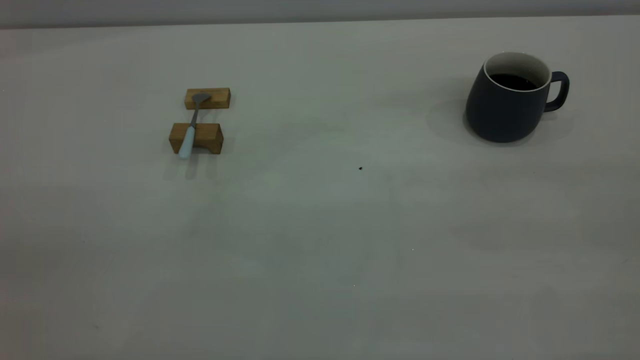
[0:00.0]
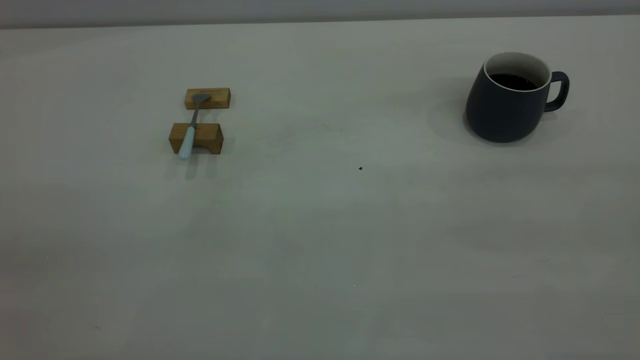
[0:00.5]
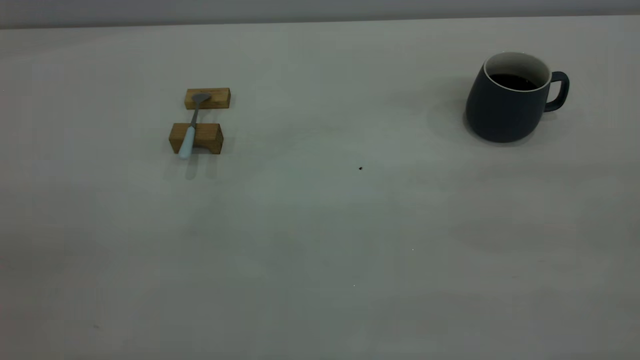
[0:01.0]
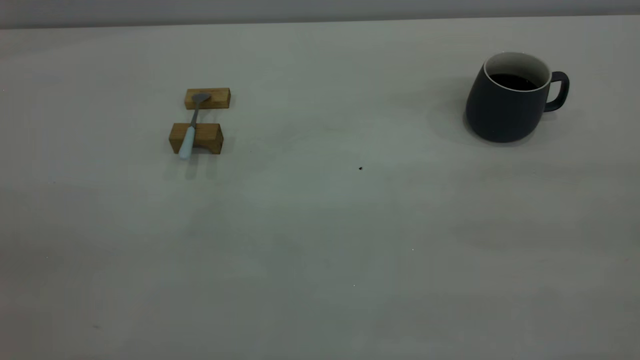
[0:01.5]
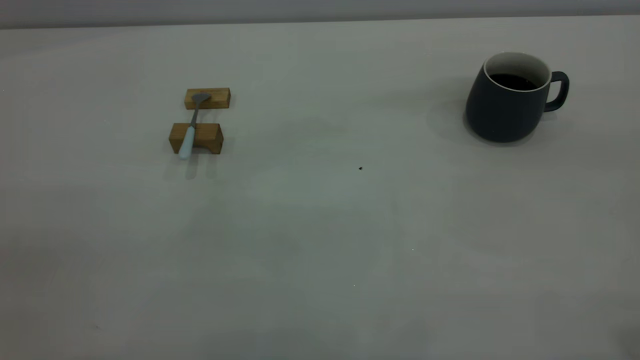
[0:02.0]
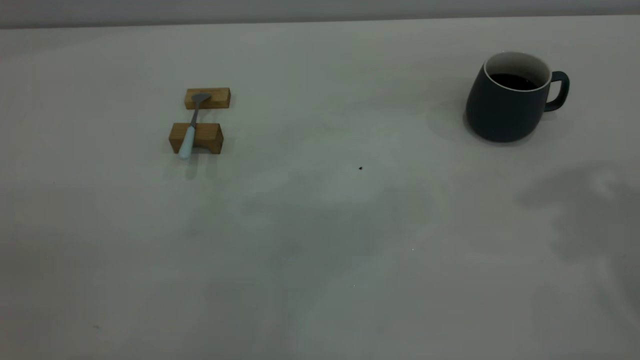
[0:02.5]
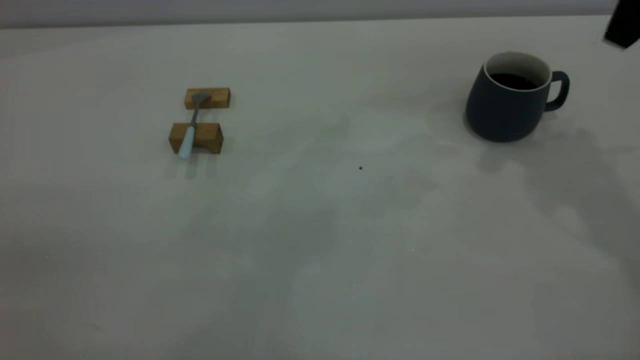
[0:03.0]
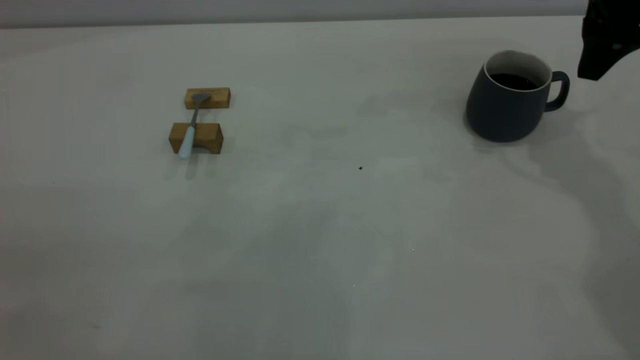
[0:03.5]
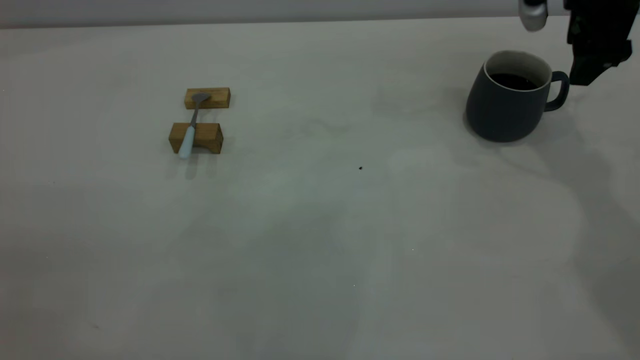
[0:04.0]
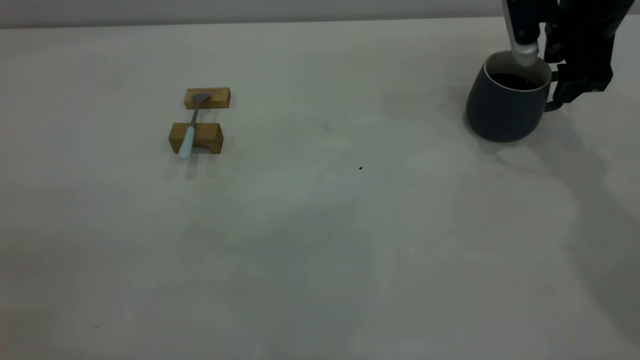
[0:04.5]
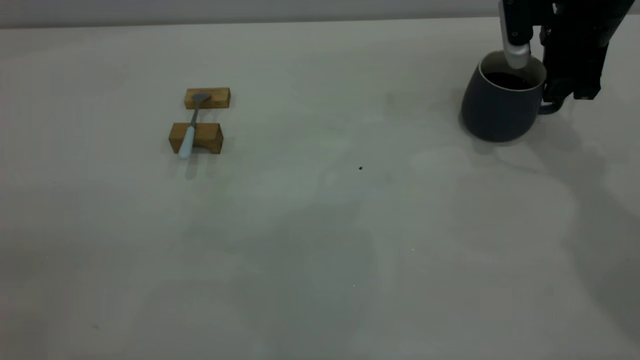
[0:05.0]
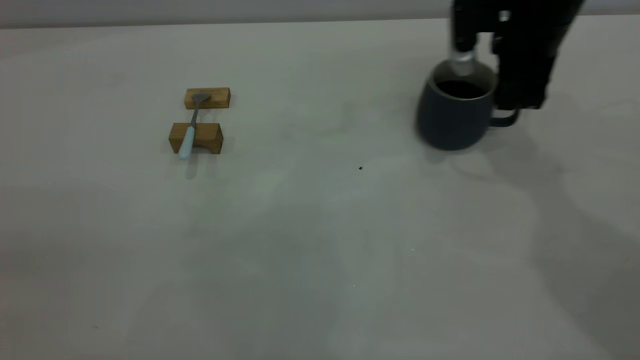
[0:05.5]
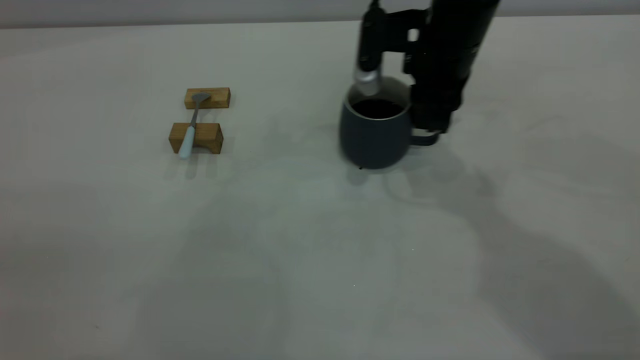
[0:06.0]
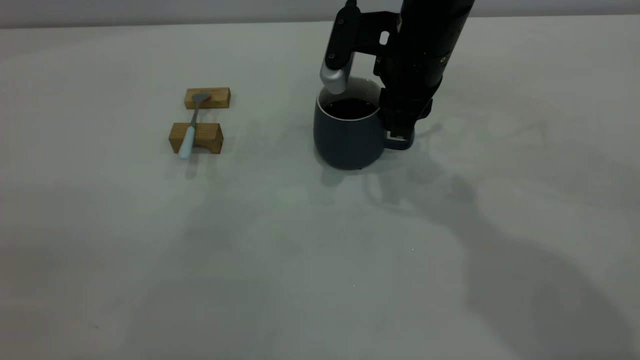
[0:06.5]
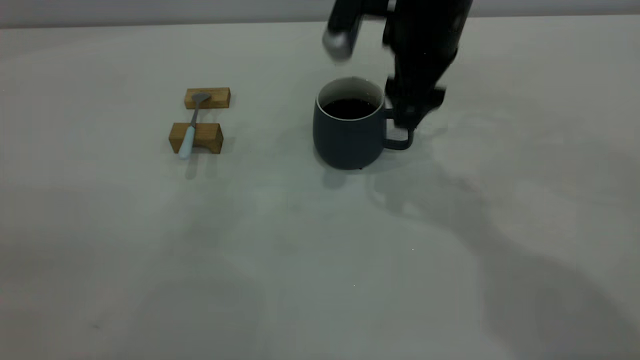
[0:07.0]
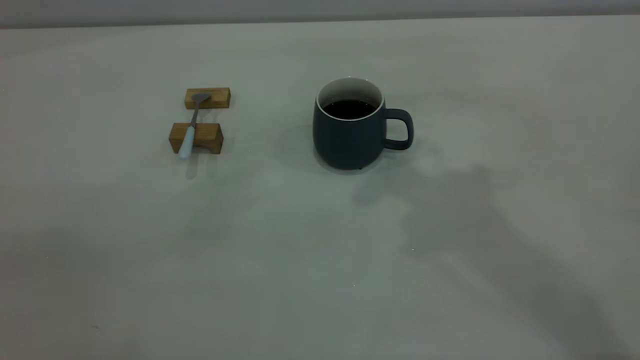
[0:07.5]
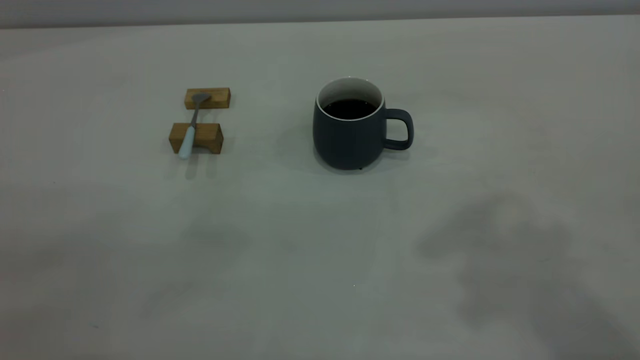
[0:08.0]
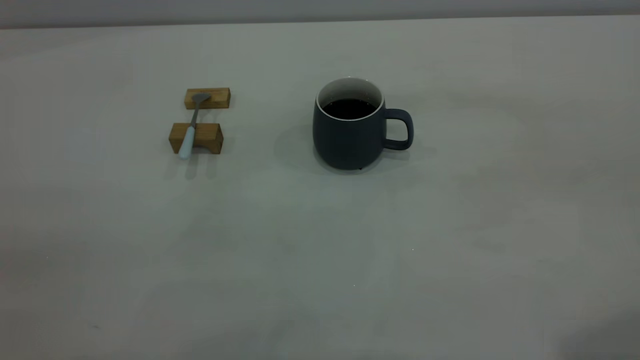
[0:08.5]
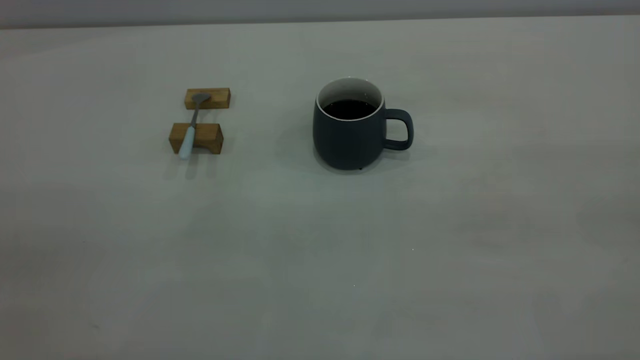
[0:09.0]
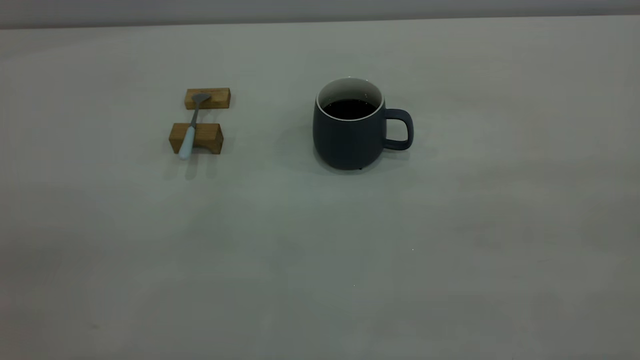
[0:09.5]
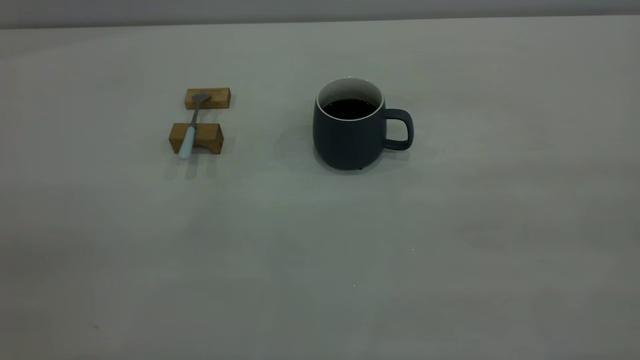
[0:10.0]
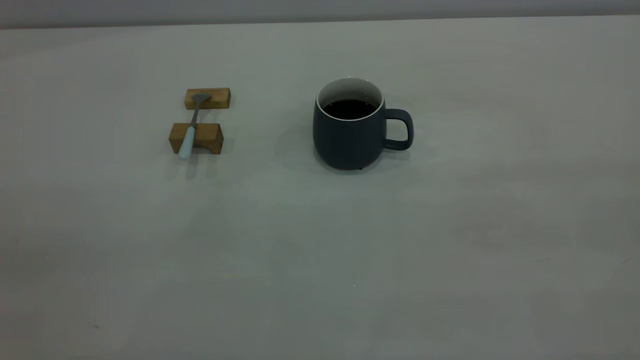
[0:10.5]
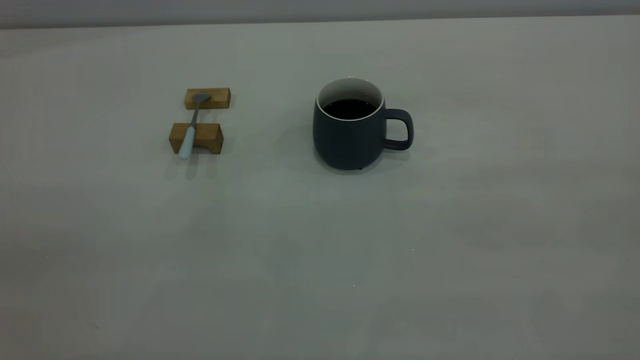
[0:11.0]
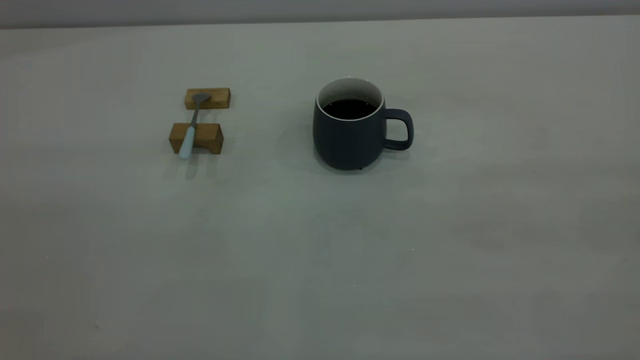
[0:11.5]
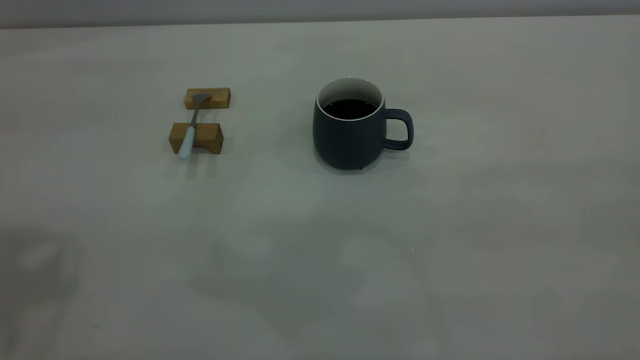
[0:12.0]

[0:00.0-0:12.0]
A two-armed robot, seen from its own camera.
Step, 0:00.0 to 0:07.0: Move the cup with coffee to the center of view.
0:02.0 to 0:04.0: The right gripper moves forward and downward, roughly 40 cm.
0:04.0 to 0:06.0: The right gripper travels to the left by approximately 15 cm, and closes up.
0:06.0 to 0:08.0: The right gripper heads upward and backward, covering some 40 cm, and opens its fingers.

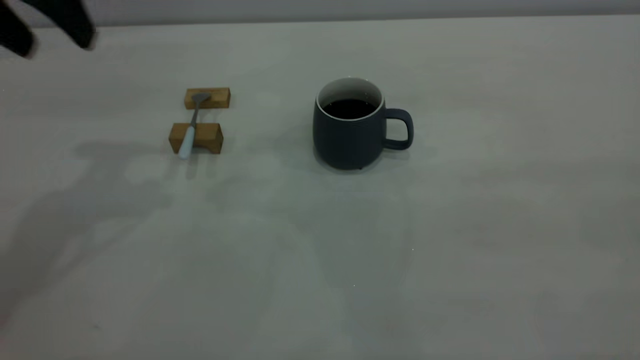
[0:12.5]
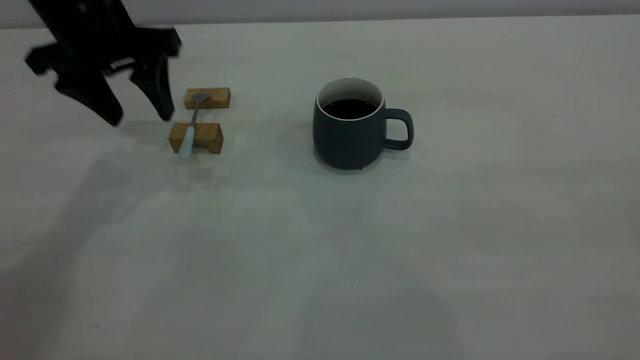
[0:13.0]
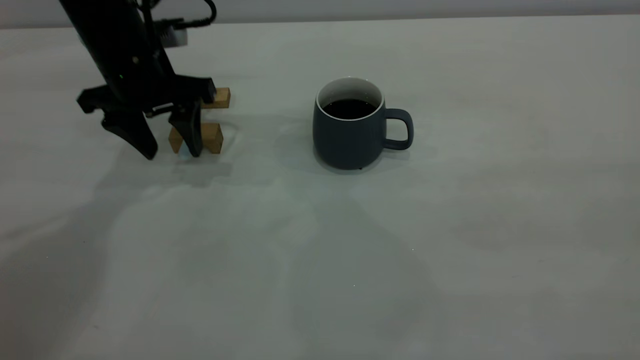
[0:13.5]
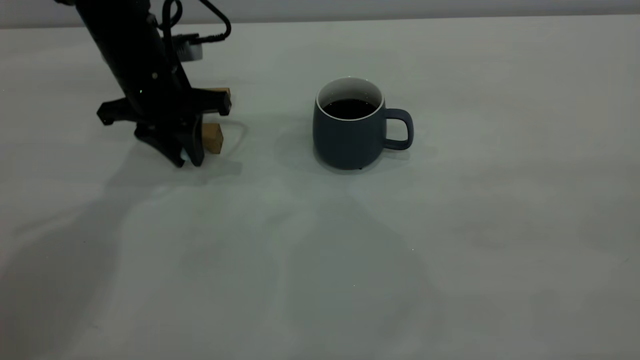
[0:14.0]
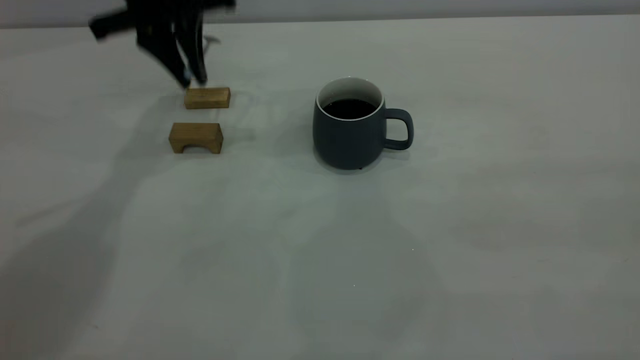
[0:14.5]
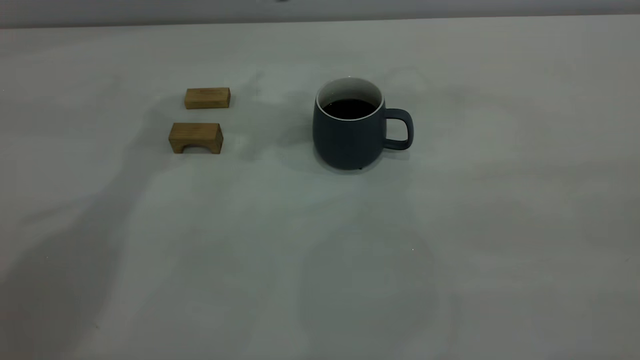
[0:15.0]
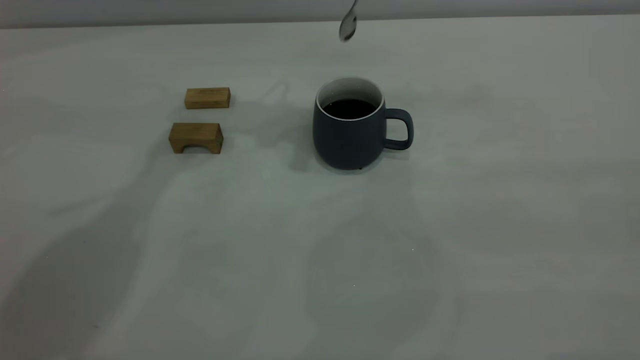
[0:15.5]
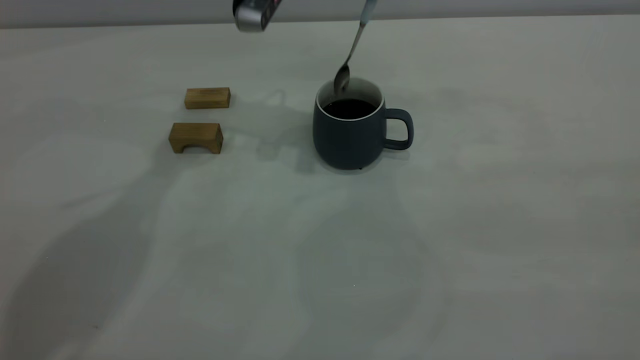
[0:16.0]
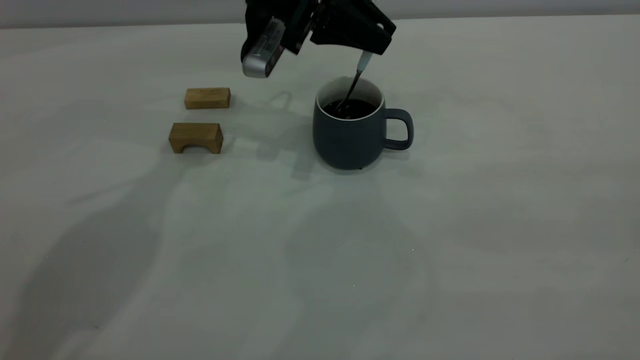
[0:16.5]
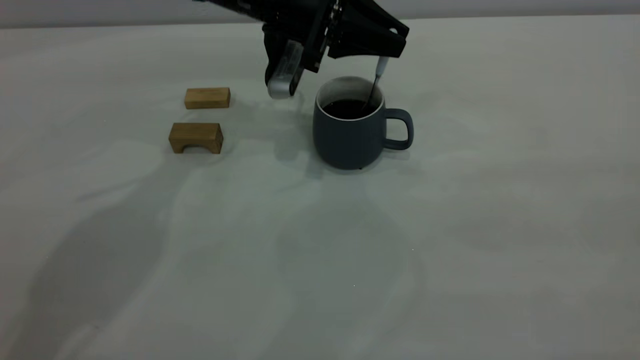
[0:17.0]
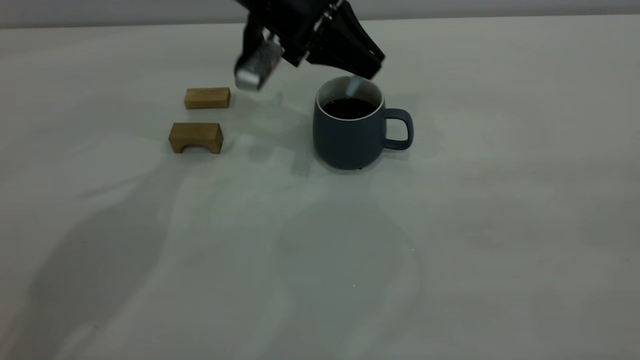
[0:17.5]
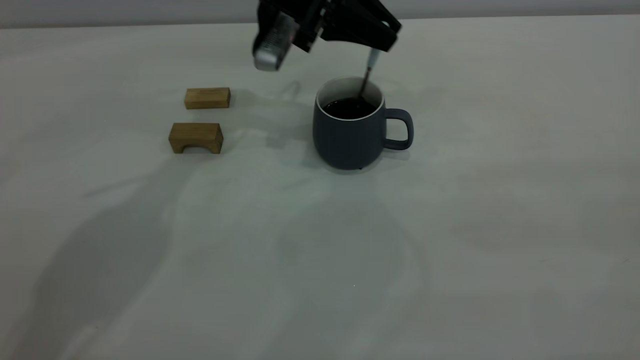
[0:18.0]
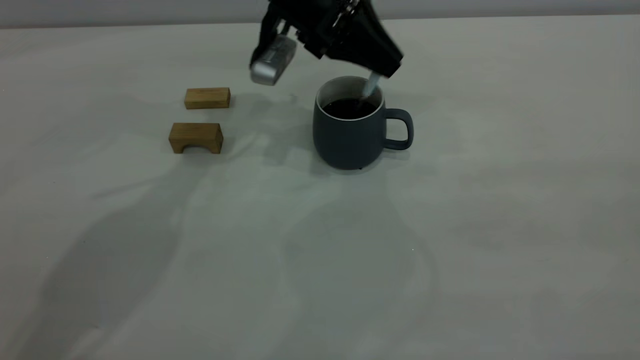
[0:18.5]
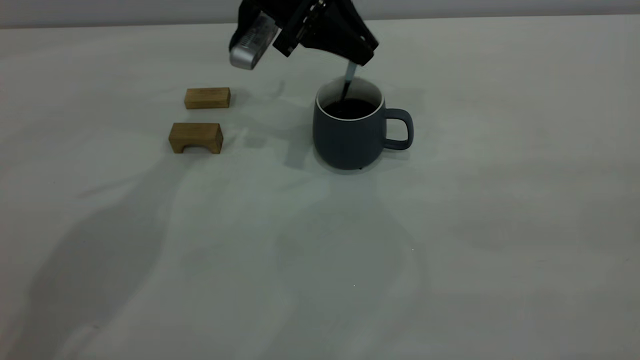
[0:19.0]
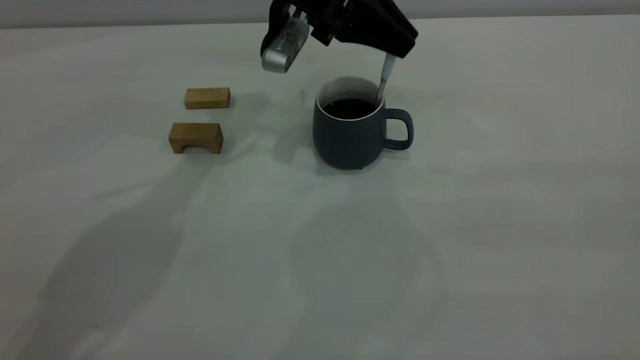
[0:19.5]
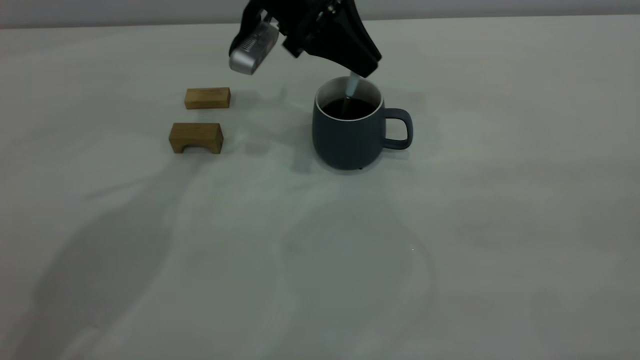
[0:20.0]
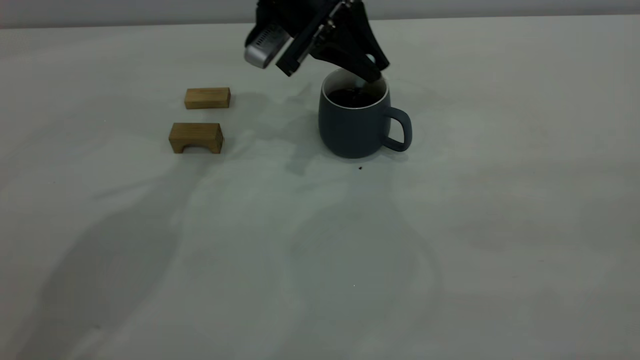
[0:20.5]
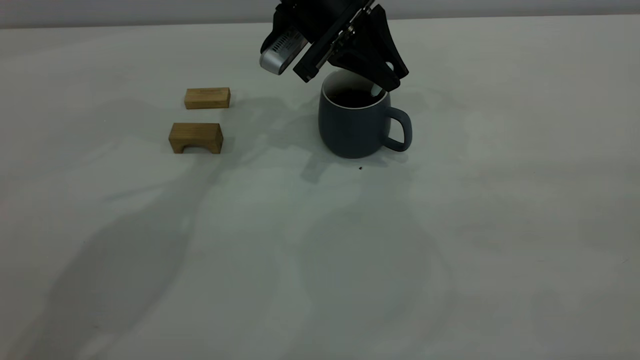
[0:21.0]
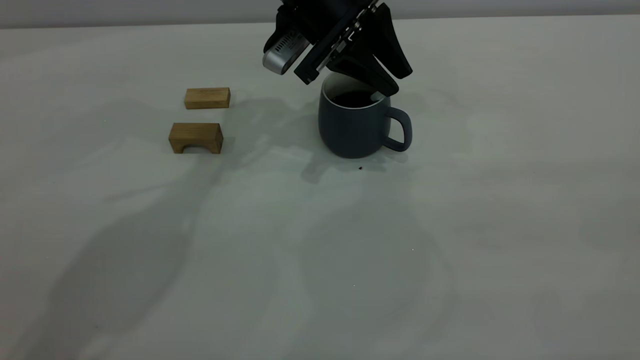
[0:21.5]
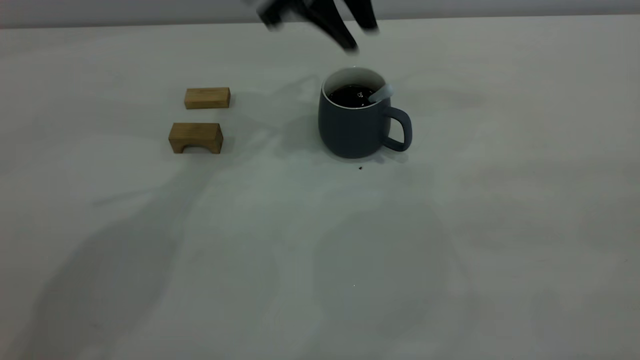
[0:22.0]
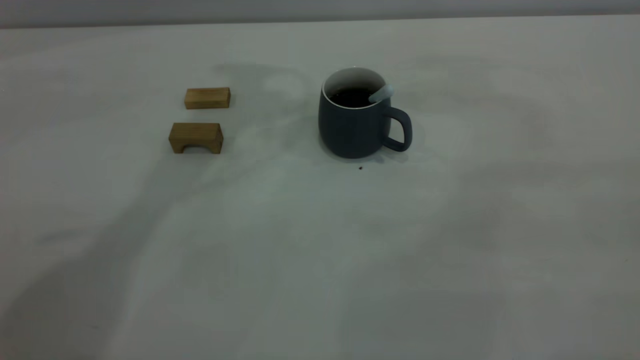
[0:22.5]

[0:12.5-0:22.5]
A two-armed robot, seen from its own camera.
Step, 0:14.5 to 0:22.0: Stir the coffee in the cup.
0:12.5 to 0:14.5: The left gripper travels forward, to the right and downward by approximately 15 cm, and closes up.
0:14.5 to 0:16.5: The left gripper moves to the right and downward, some 10 cm.
0:16.5 to 0:18.5: The grippers move only a little.
0:20.5 to 0:22.5: The left gripper goes approximately 25 cm upward, and opens up.
